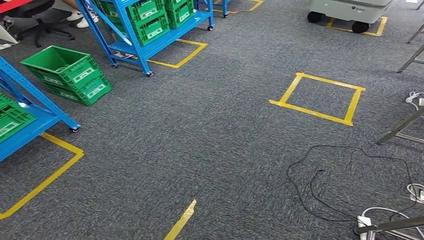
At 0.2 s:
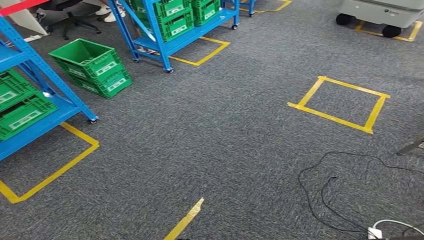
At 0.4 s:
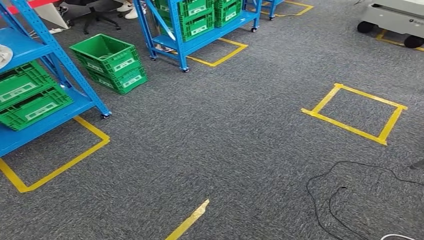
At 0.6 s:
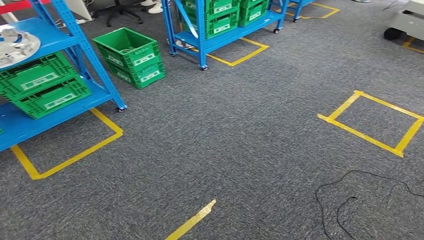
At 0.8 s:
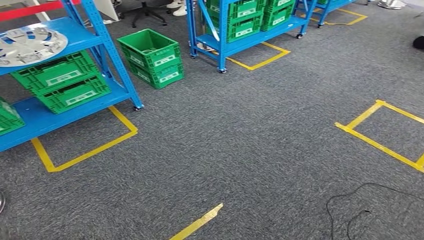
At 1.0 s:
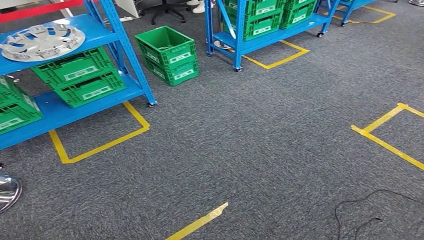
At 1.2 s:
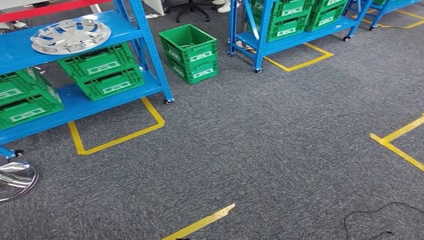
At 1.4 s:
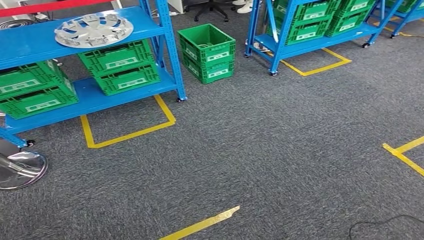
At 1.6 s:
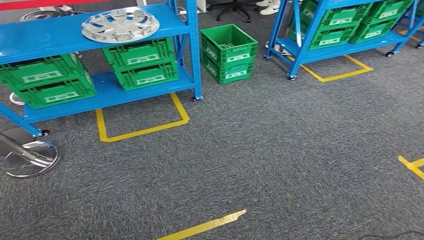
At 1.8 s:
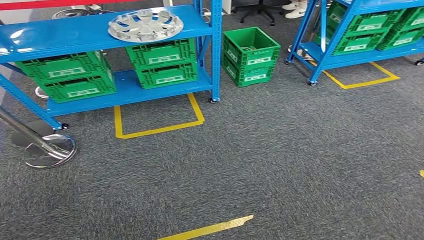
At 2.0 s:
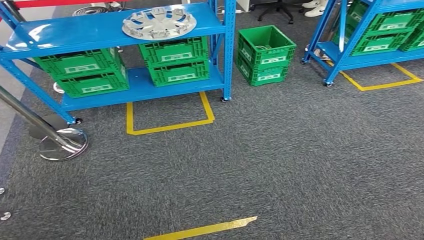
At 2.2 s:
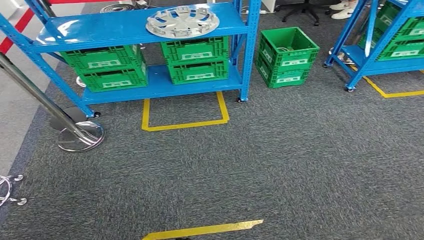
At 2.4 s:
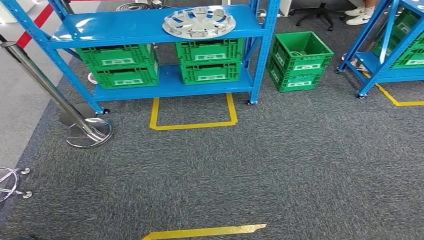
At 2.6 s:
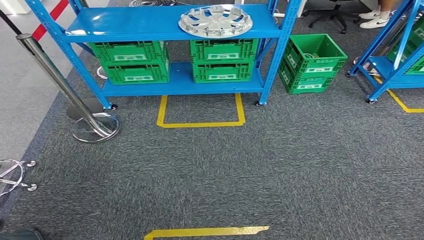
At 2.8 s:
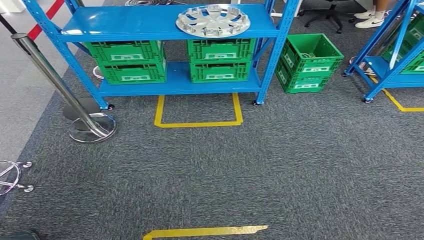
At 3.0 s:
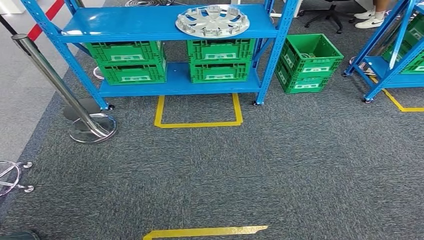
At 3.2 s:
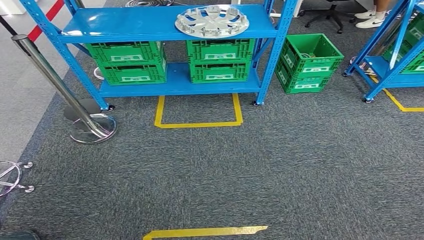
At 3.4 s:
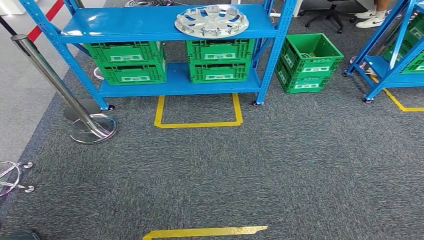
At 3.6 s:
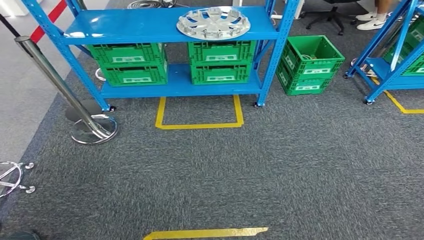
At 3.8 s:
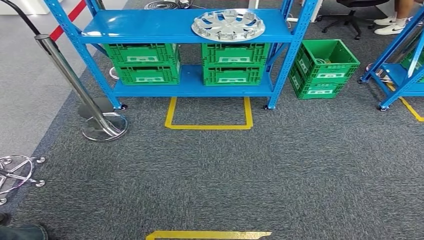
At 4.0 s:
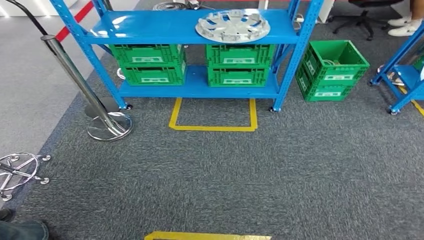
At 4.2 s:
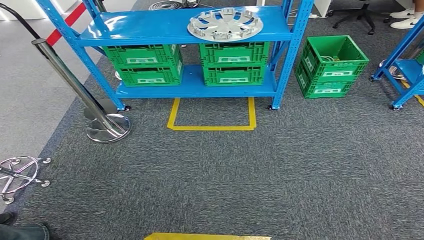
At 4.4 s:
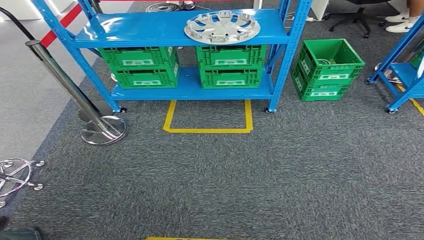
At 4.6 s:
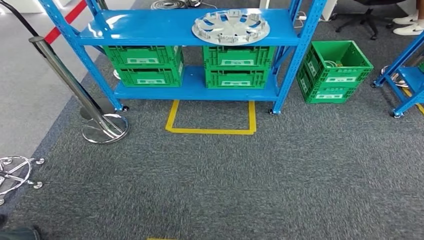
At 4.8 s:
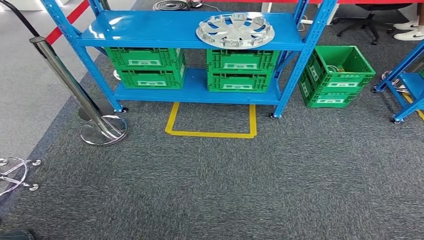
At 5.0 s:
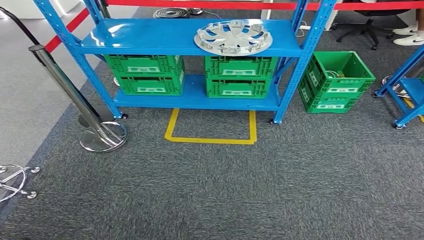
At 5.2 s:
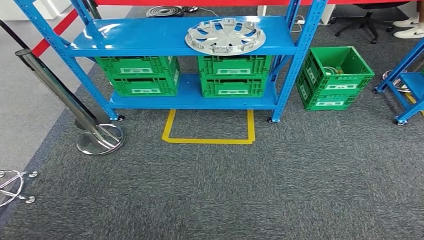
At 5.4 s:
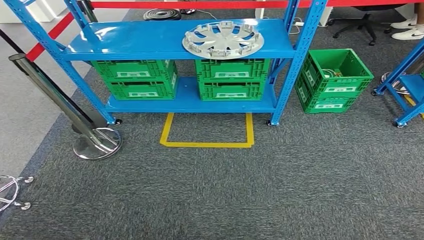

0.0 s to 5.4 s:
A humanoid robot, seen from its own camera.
Step, 0.0 to 5.4 s: Return to the initial position at the workbench.
